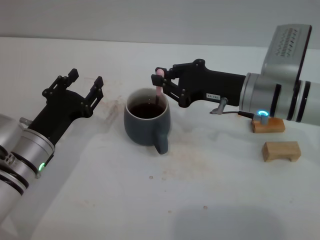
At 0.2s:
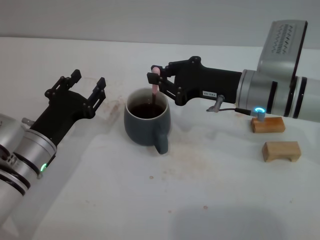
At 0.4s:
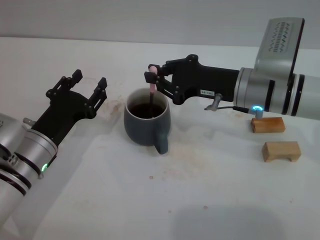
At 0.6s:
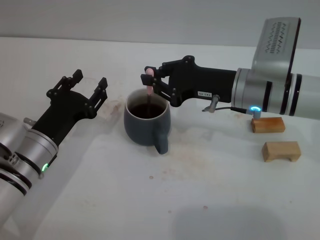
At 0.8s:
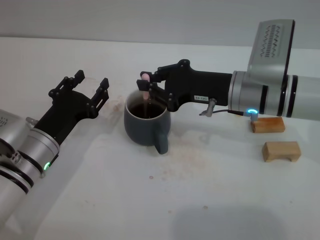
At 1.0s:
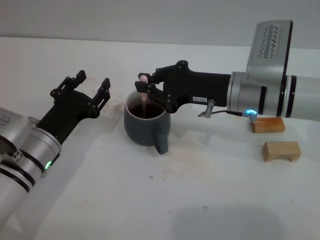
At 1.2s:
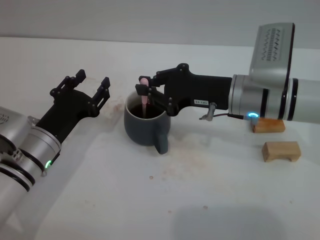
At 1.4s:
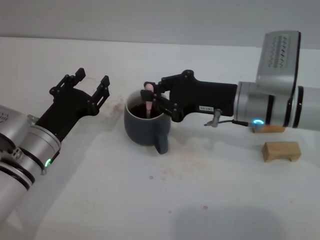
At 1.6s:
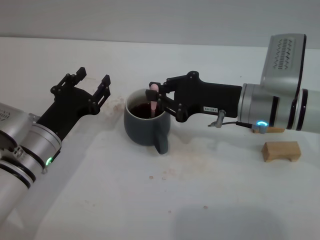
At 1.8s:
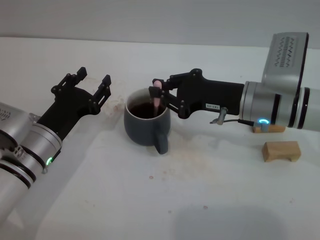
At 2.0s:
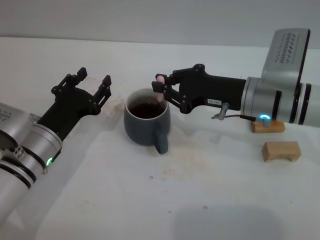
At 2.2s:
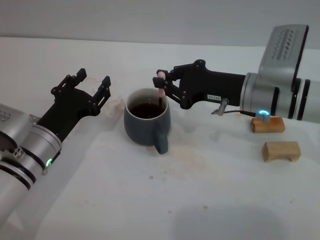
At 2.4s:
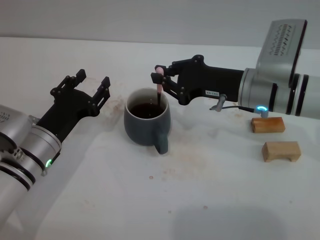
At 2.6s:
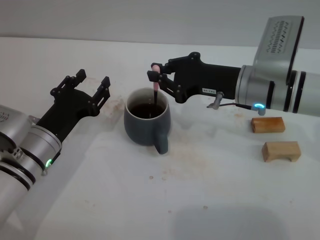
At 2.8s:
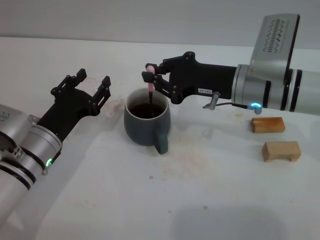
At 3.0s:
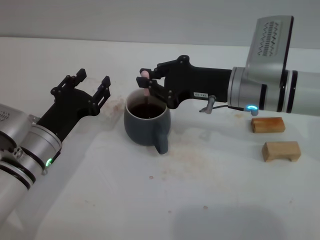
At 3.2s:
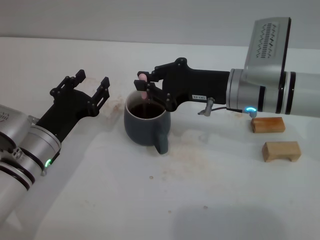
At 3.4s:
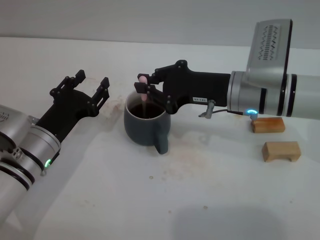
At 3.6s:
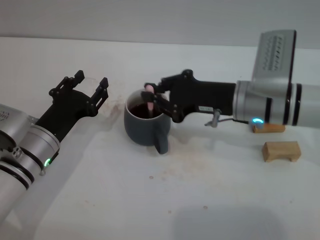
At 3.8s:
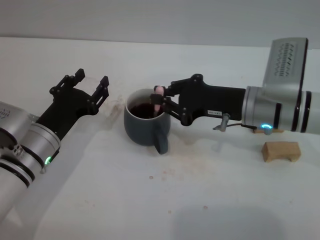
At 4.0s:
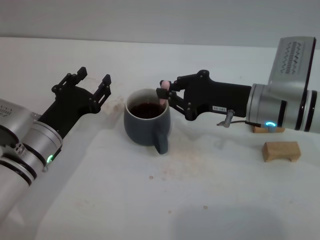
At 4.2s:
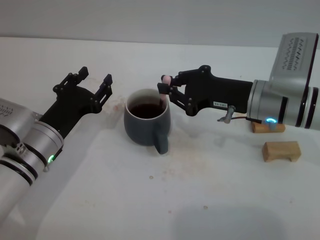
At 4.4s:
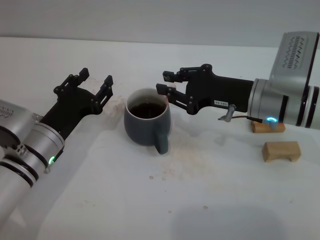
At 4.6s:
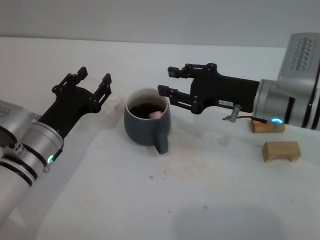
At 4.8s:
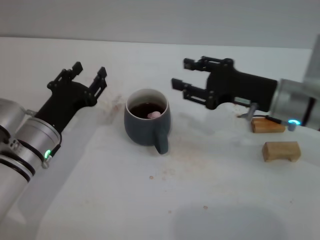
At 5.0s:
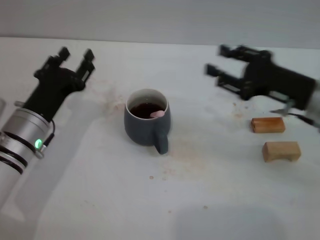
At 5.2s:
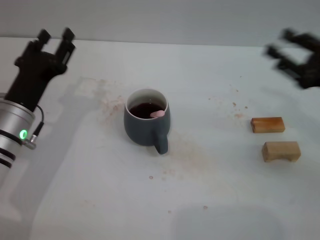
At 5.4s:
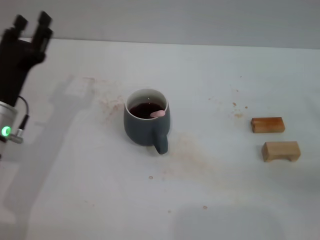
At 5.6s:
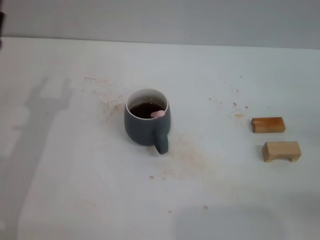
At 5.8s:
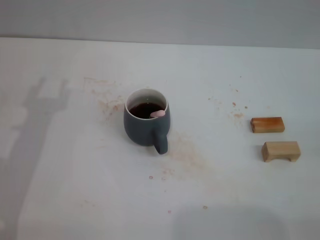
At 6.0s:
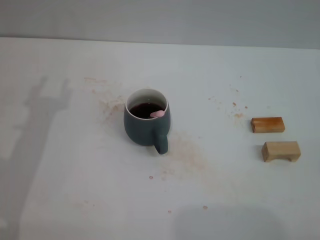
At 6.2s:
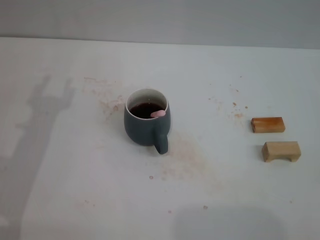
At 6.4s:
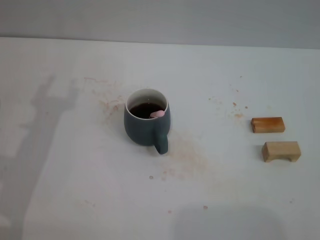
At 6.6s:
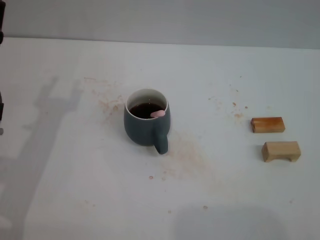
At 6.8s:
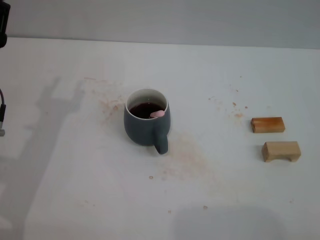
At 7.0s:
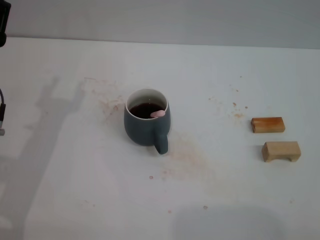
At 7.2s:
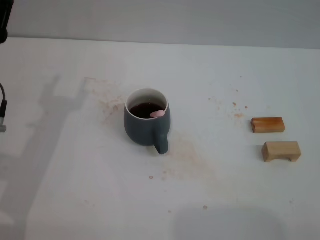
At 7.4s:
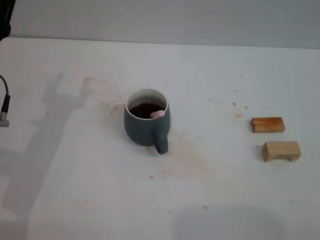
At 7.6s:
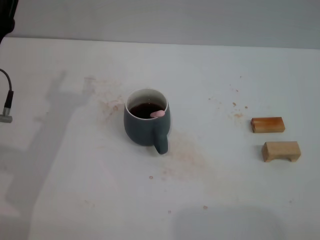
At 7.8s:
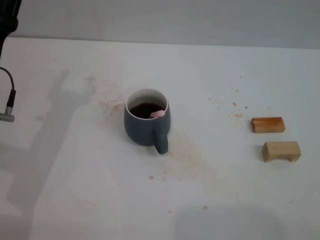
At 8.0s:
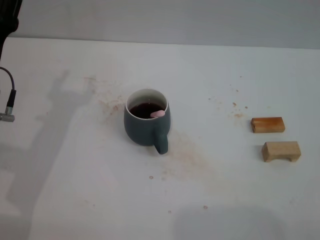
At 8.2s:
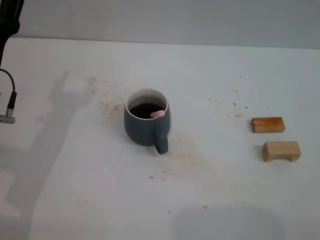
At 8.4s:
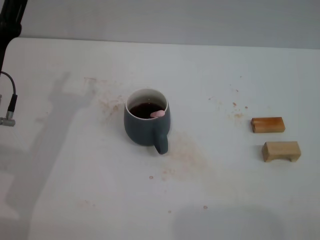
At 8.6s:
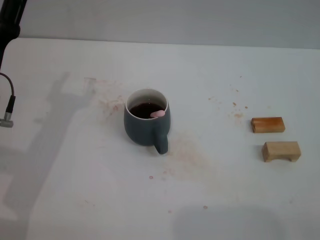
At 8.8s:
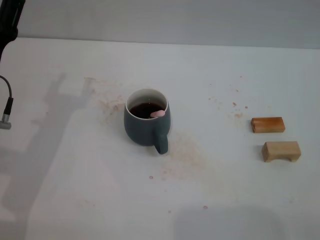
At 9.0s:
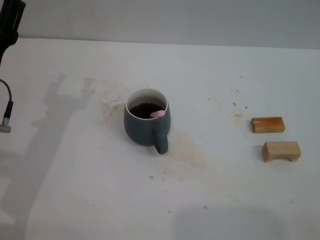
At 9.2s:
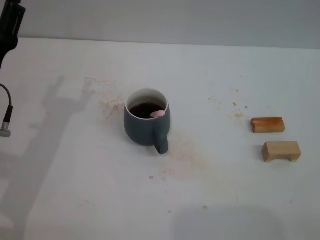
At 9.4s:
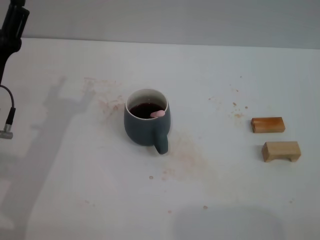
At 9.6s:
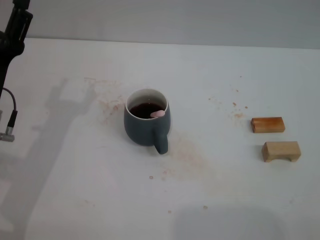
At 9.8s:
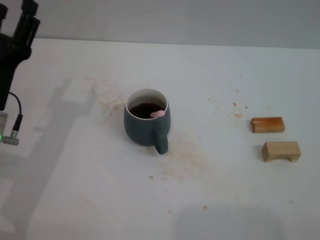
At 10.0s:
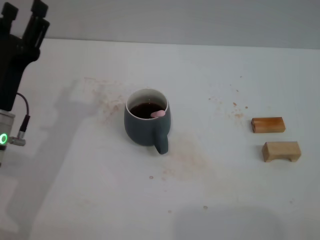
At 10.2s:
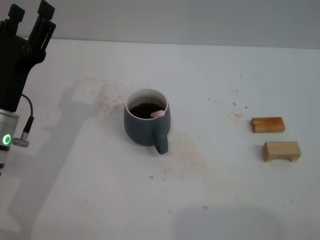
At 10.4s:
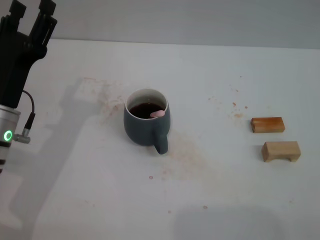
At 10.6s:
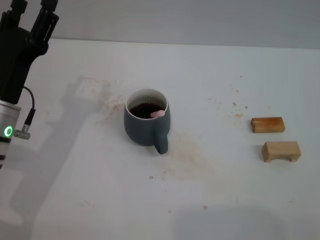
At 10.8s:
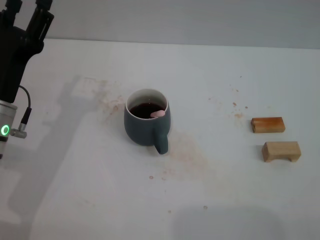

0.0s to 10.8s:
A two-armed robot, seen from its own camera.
Task of the whole recording: Move the grey cup to the center, lift the pink spoon, stir it three times in the cup, and put the spoon into the cup.
Step, 0.0s to 4.8s: Stir the coffee in the cup with the right gripper.
0.0s to 4.6s: The grippers stay close to where they were, moving slightly.
4.6s to 6.2s: The left gripper heads upward and to the left, covering roughly 10 cm; the right gripper moves to the right and backward, approximately 40 cm, and opens.
6.2s to 7.8s: The left gripper opens.
7.8s to 10.8s: The grippers make only small movements.

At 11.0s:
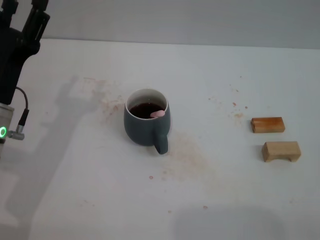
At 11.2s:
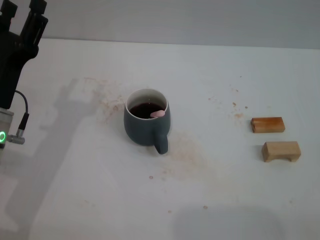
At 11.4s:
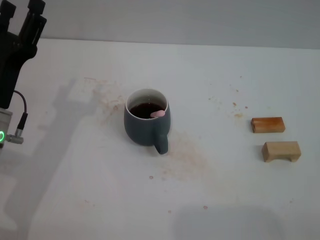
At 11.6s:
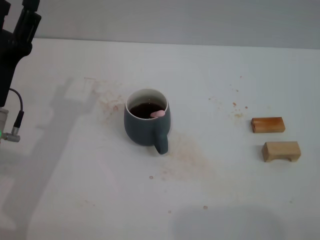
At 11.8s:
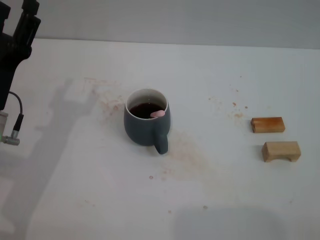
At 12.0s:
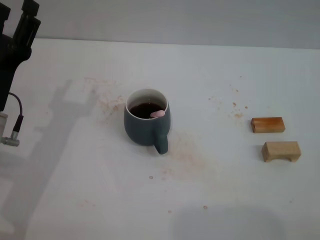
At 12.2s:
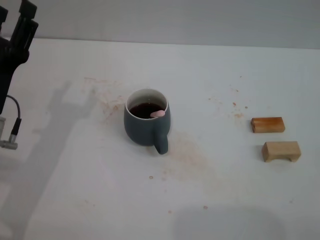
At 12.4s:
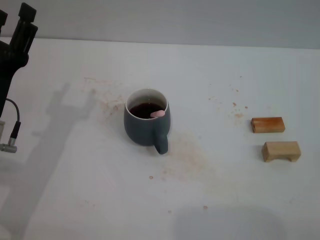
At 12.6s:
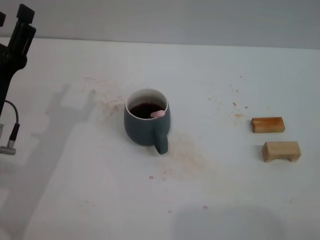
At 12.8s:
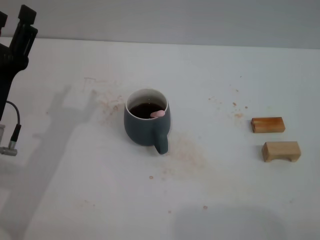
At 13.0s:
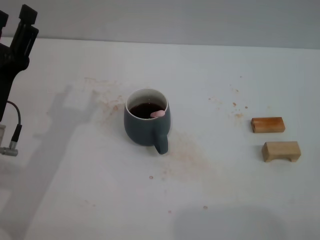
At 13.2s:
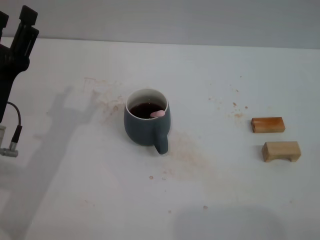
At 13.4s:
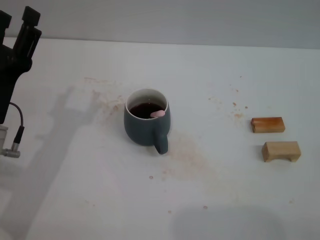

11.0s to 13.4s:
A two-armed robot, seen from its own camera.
Task of the whole recording: Move the grey cup to the center, lift the pink spoon, stir it three times in the cup, and put the spoon into the cup.
11.0s to 12.2s: The grippers make only small movements.
12.2s to 13.4s: The two grippers keep their place.

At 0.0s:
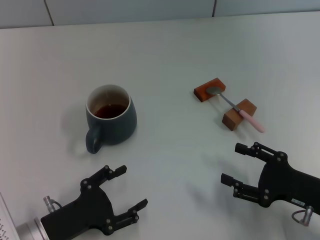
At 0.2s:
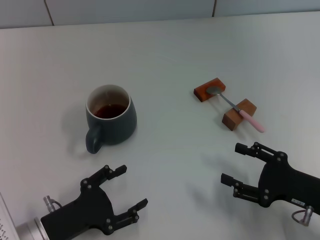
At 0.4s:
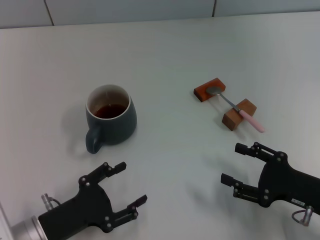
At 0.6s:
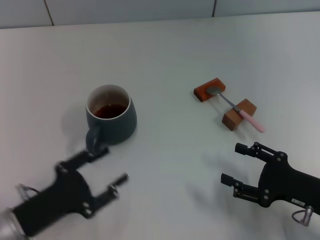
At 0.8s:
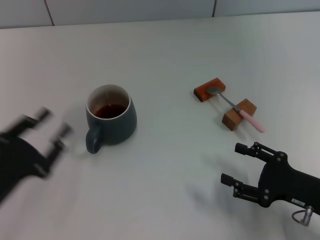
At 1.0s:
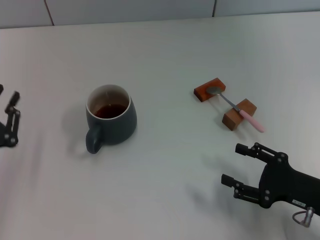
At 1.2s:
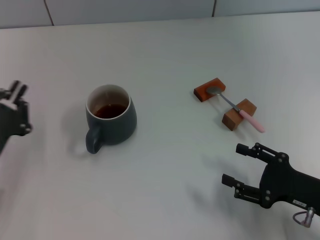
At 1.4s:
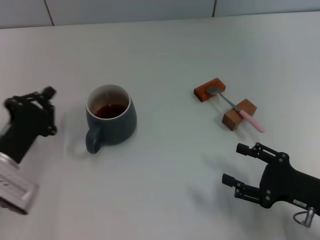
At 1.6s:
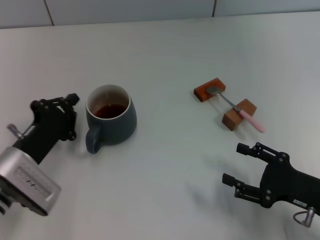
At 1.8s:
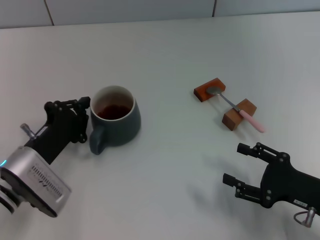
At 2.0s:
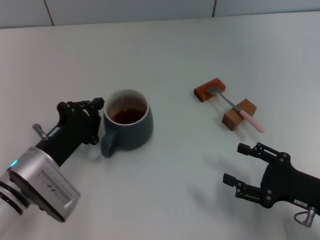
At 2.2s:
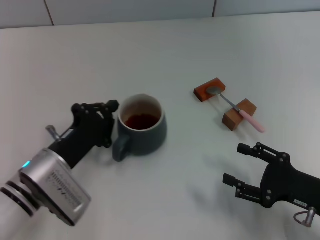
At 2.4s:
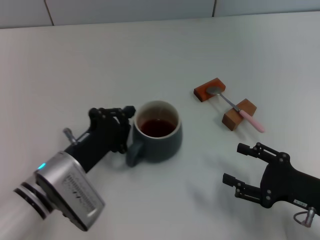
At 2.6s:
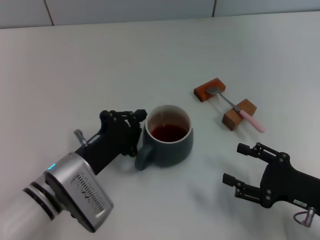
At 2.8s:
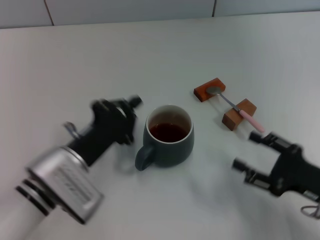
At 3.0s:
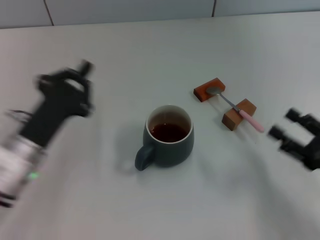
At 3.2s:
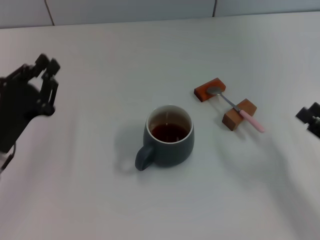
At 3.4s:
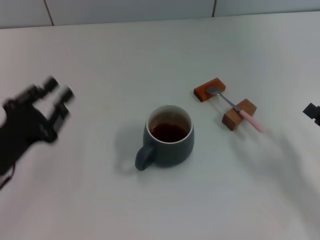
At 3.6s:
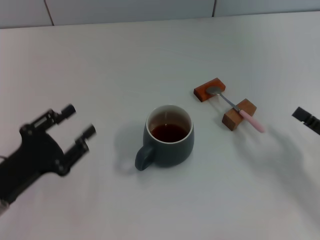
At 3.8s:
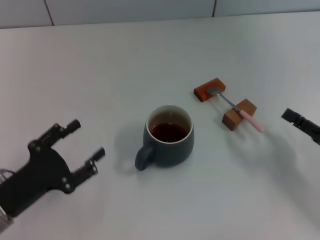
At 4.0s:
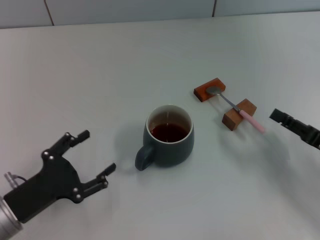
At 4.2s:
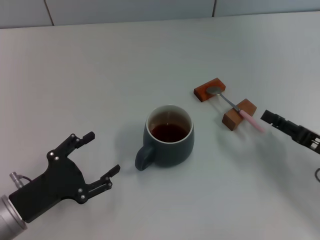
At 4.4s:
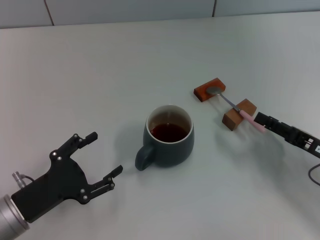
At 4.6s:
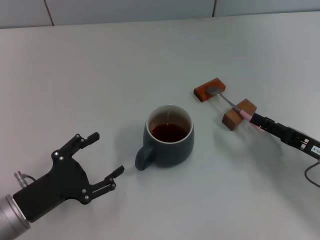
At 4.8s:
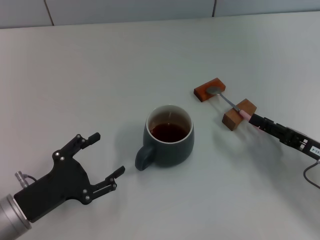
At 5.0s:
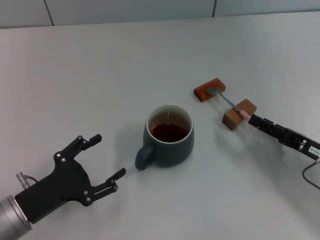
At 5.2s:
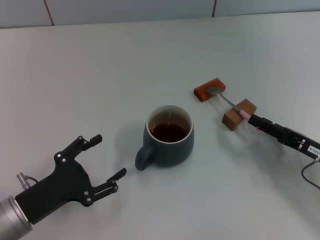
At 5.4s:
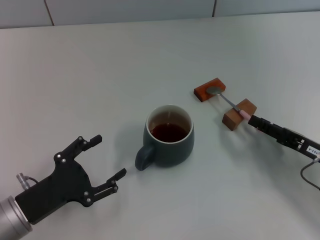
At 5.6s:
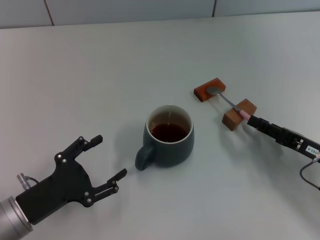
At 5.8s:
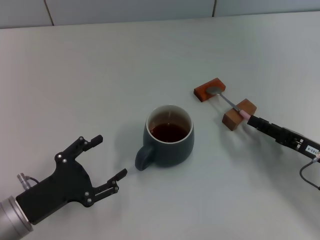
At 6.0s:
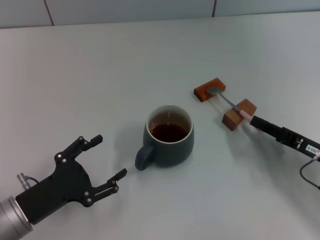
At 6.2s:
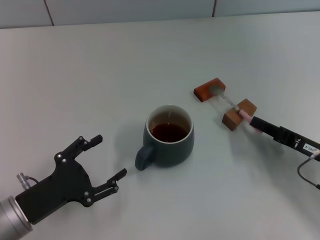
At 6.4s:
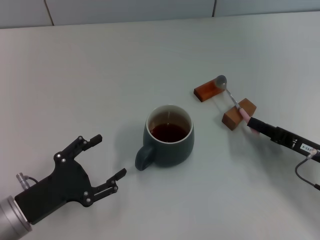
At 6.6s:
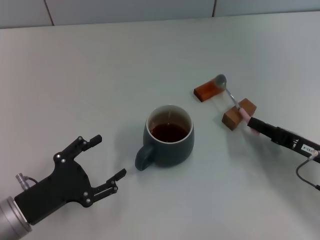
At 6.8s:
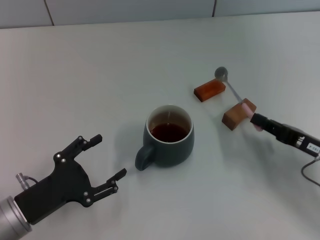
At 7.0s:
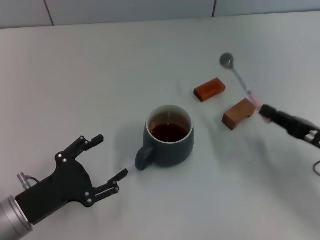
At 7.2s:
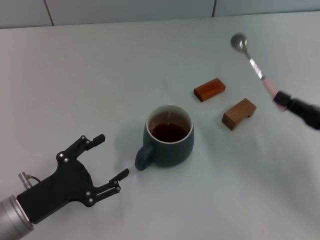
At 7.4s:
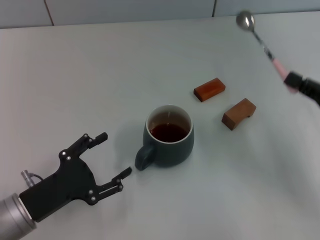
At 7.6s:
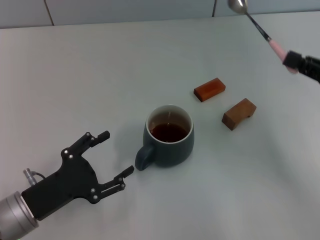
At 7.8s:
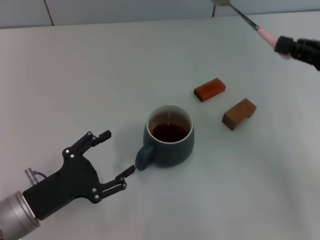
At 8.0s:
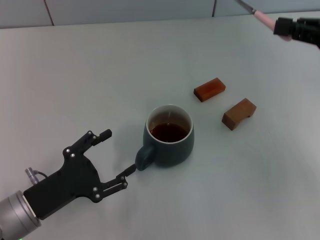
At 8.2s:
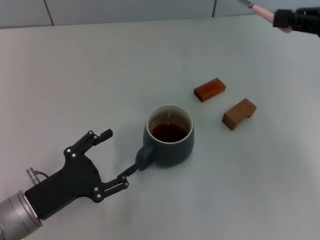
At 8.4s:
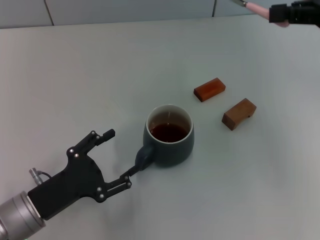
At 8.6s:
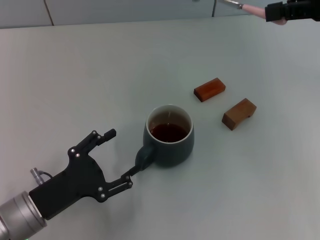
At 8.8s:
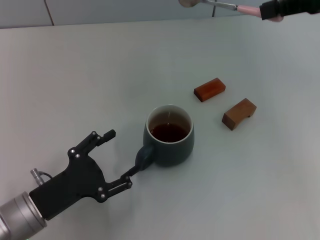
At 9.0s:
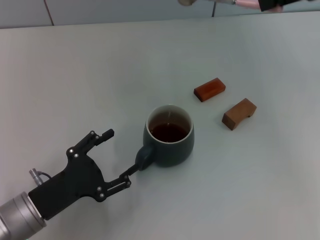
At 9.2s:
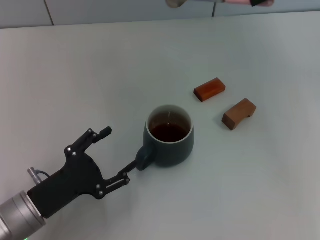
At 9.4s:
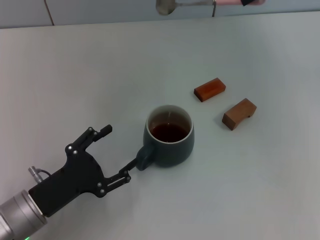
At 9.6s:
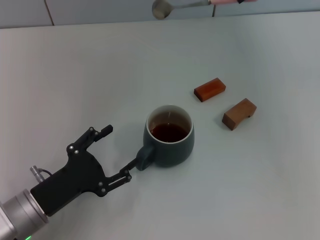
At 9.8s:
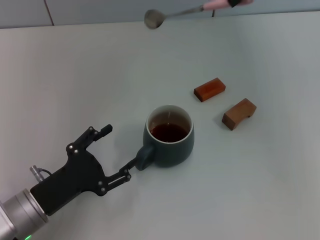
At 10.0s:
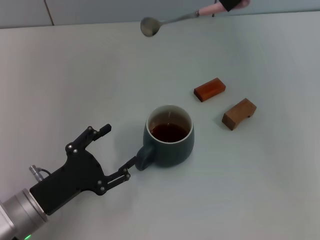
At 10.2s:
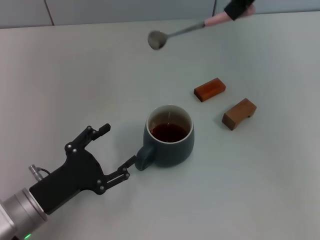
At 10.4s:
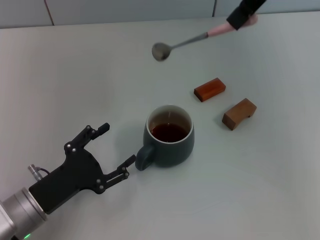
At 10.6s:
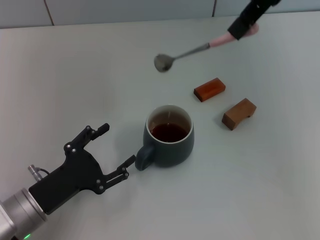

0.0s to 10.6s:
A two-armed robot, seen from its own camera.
Task of the whole recording: Move the grey cup to the center, lift the pink spoon, stir it three times in the cup, and put the spoon into the cup.
Step, 0.0s to 2.6s: Move the cup with coffee to the center of view with the left gripper.
Step, 2.8s to 6.6s: Pick up the spoon with the right gripper.
0.0s to 1.6s: The left gripper moves forward, approximately 10 cm, and closes its fingers.
1.6s to 3.0s: The left gripper reaches about 10 cm to the right, then returns.
3.0s to 4.6s: The right gripper shifts some 5 cm forward. Meanwhile the left gripper shifts some 5 cm backward, and opens its fingers.
4.6s to 6.0s: The right gripper closes.
6.0s to 7.6s: The right gripper heads upward, covering some 10 cm, and closes its fingers.
7.6s to 9.0s: The right gripper travels upward and forward by about 20 cm.
9.0s to 10.6s: The right gripper moves to the left and upward, approximately 10 cm.
